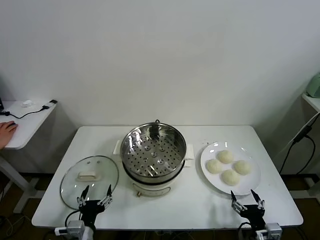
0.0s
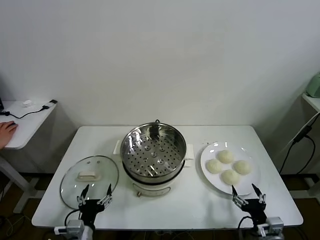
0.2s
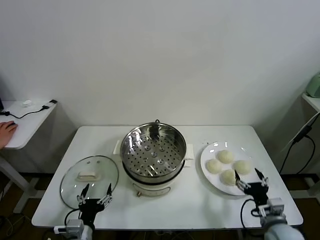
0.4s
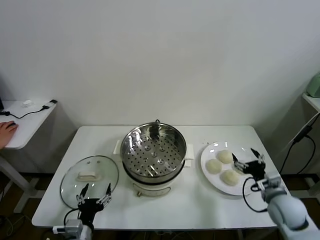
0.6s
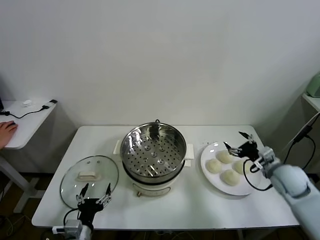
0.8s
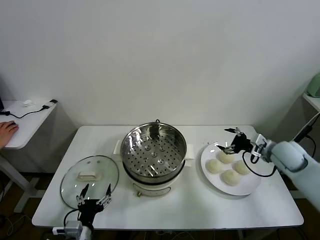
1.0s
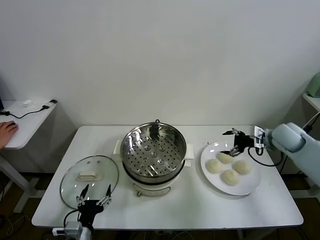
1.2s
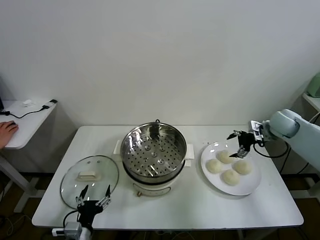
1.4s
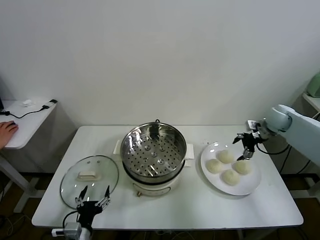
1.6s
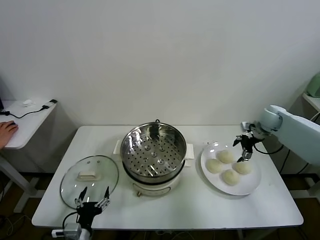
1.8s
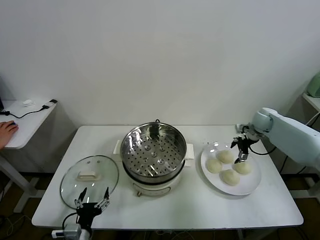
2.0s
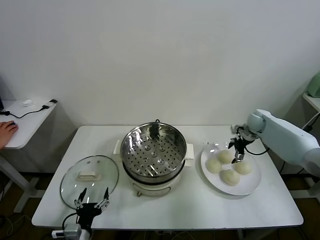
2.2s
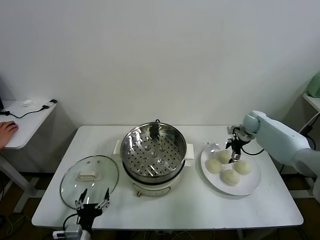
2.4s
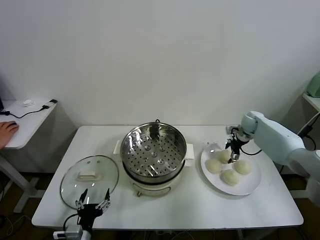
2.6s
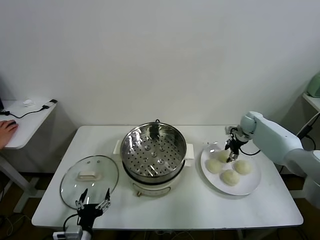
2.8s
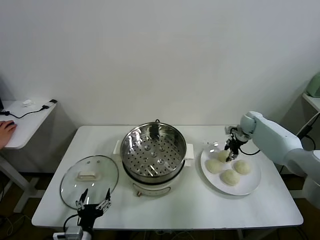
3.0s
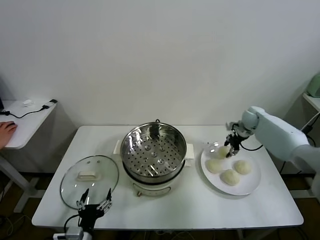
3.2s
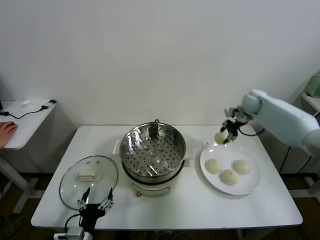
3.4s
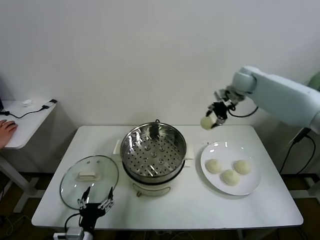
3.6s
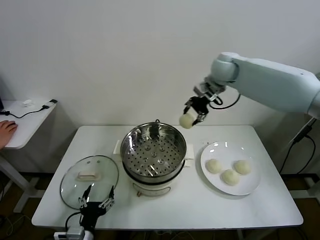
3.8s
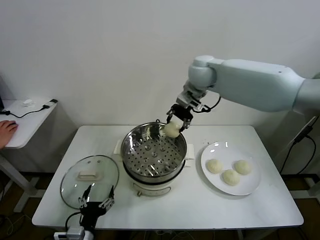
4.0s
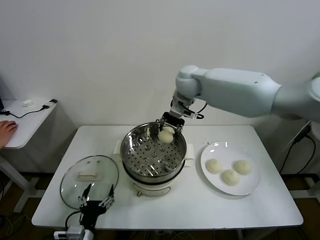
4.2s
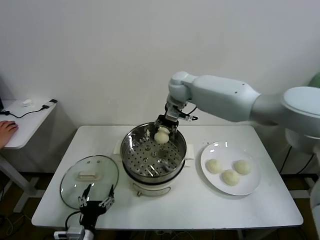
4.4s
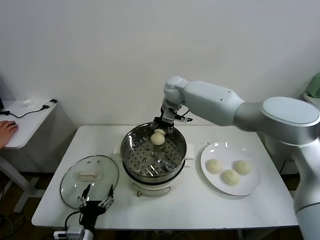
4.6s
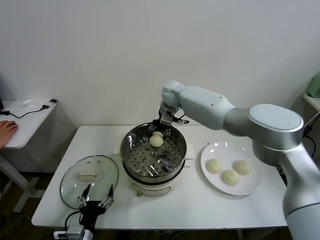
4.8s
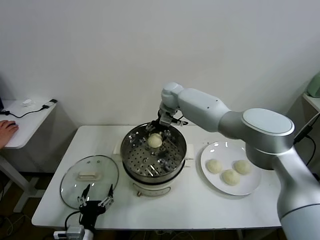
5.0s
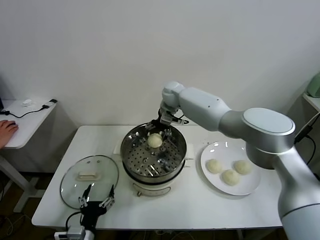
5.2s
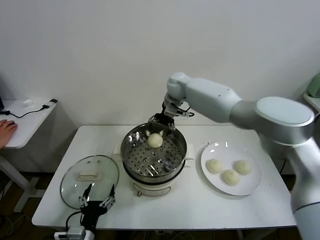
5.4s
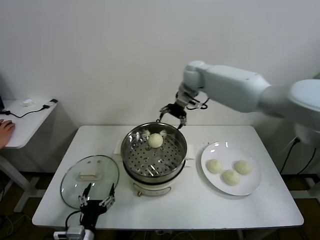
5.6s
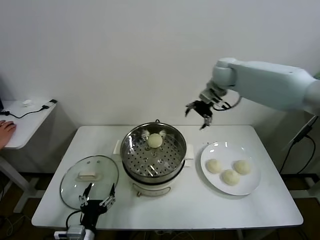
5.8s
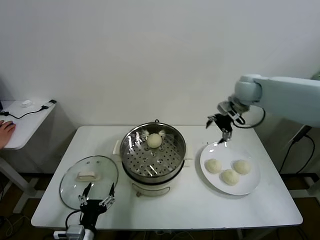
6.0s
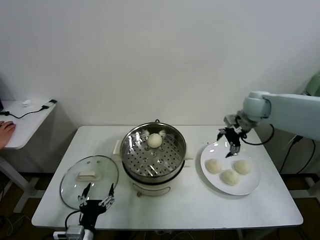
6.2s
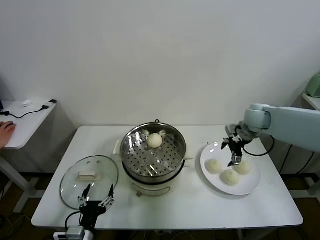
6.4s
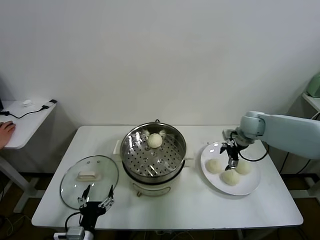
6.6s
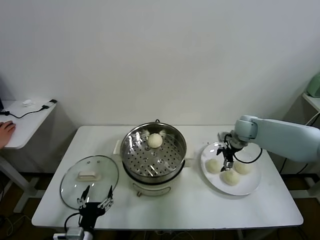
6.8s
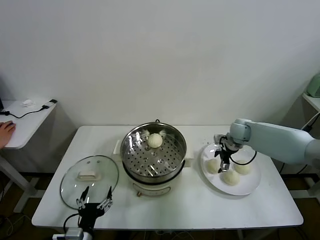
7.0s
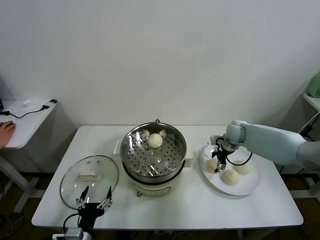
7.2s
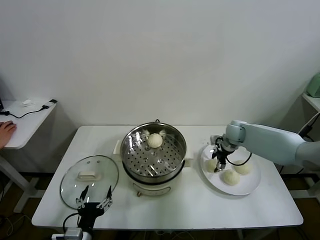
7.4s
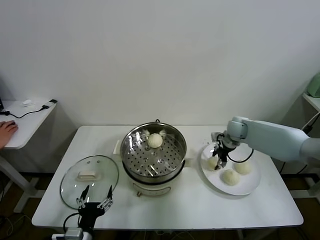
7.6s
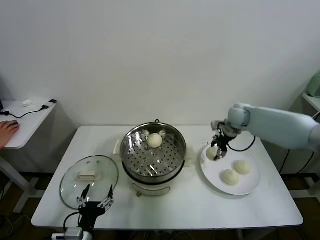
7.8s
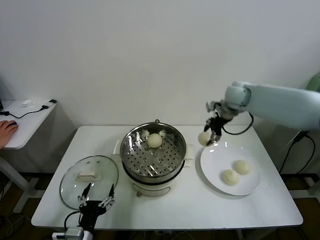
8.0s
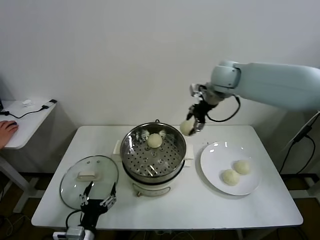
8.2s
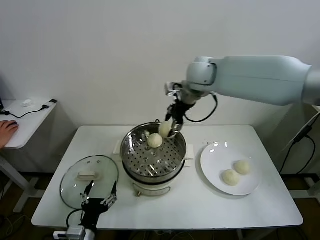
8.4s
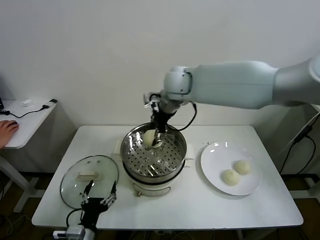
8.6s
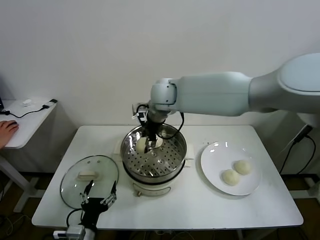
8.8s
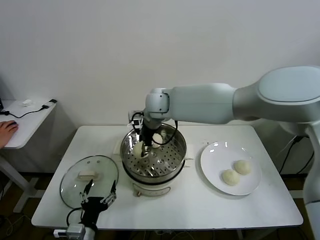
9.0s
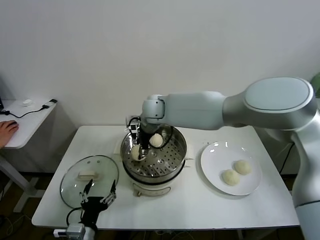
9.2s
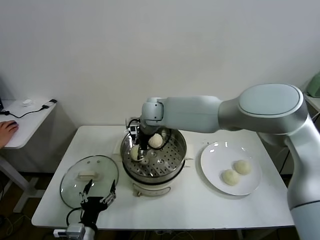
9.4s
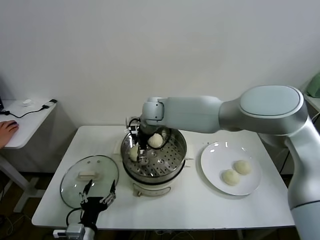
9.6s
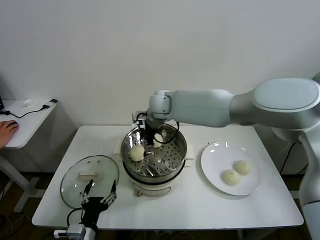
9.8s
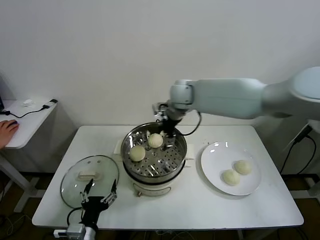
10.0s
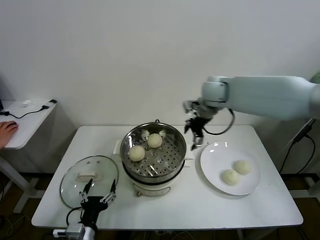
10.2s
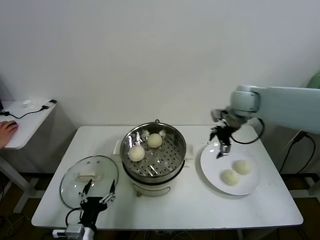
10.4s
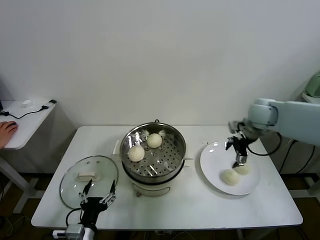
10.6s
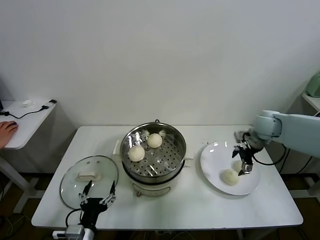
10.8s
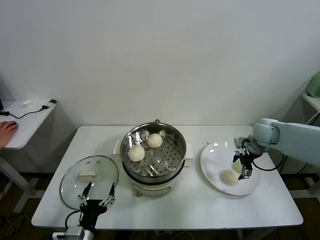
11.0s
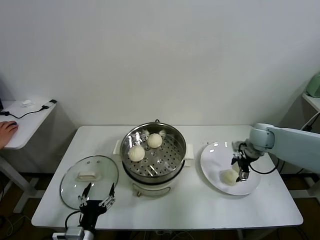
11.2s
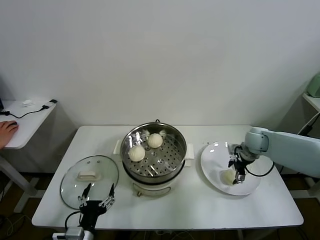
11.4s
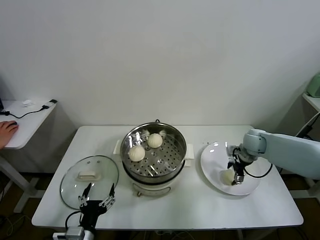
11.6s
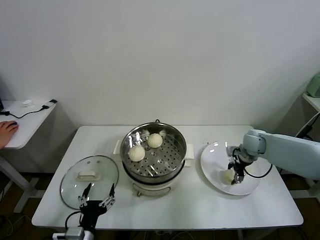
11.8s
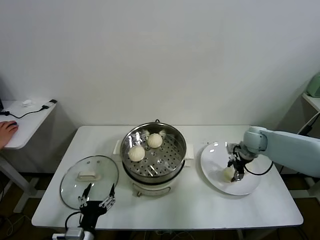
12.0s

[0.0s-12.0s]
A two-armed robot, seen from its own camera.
Task of the whole recording: take steamed baozi put them in steamer.
Step, 0.0s to 2.8s: Grasp the baozi in the plate with right gripper.
Step, 3.2s to 5.2s: Place the baozi on the steamer with right gripper.
Step, 5.4s to 7.2s: Grasp the baozi in the plate with right gripper.
Step, 7.4s to 9.6s: Place the baozi on the steamer with right gripper.
Step, 9.8s to 11.8s: Grasp the baozi in the plate with right gripper.
1.6s to 3.0s: The right gripper heads downward and forward, covering approximately 10 cm, and closes.
3.0s to 4.4s: The right gripper heads to the left and upward, covering about 35 cm.
4.4s to 6.0s: The right gripper shifts about 25 cm to the right, and opens up.
6.0s to 7.6s: The right gripper heads downward, covering some 15 cm, and closes.
7.6s to 9.0s: The right gripper travels to the left by some 30 cm.
9.0s to 10.4s: The right gripper is displaced to the right by approximately 30 cm, and opens its fingers.
10.4s to 12.0s: The right gripper heads downward and to the right, covering some 15 cm, and closes up.

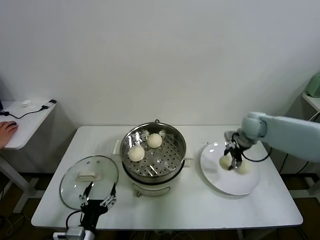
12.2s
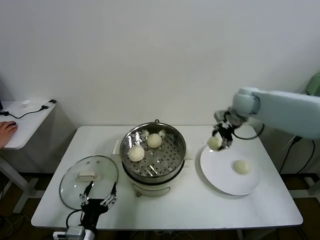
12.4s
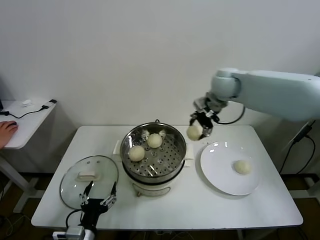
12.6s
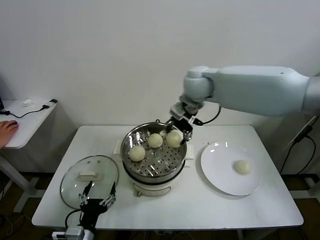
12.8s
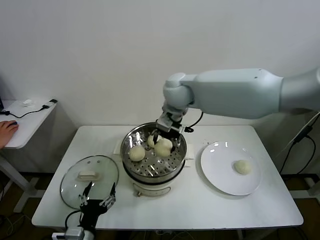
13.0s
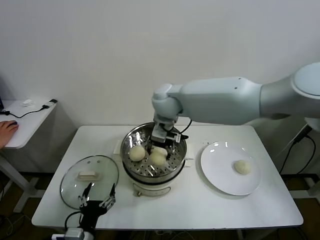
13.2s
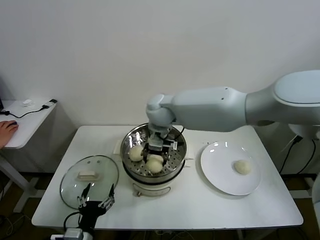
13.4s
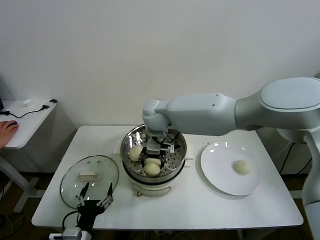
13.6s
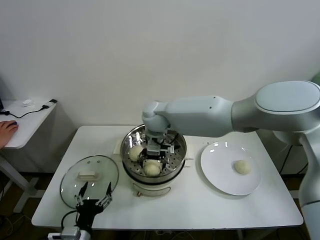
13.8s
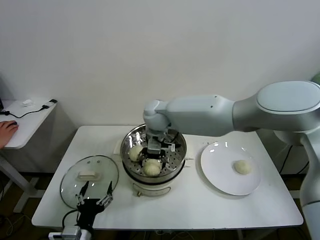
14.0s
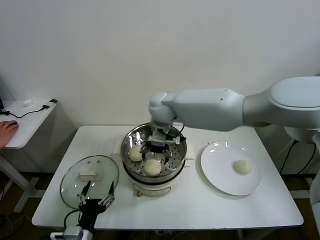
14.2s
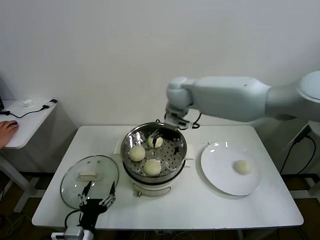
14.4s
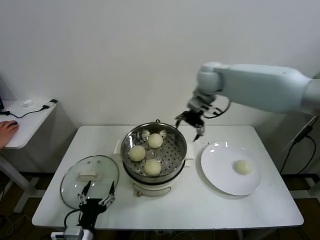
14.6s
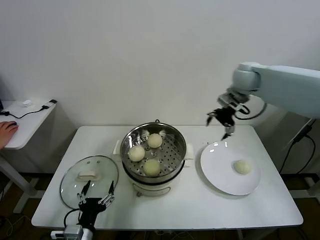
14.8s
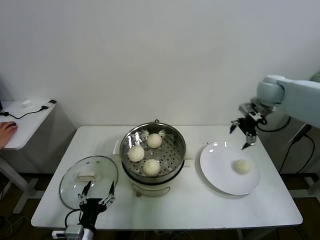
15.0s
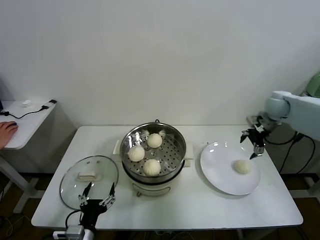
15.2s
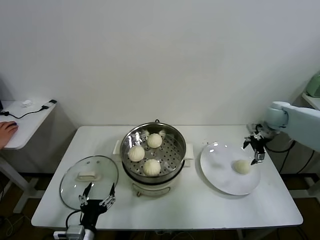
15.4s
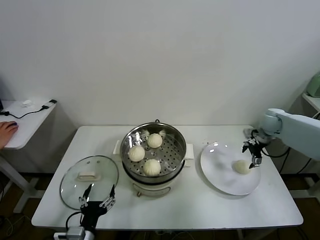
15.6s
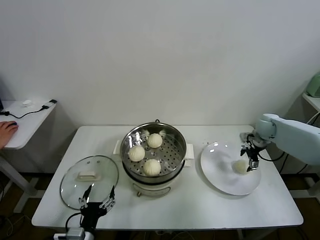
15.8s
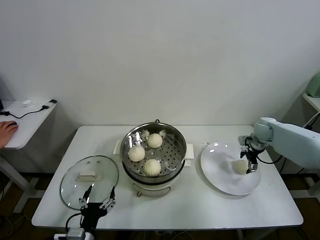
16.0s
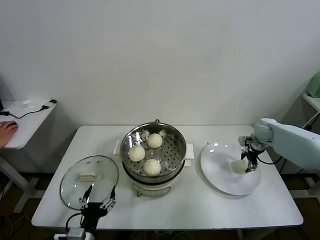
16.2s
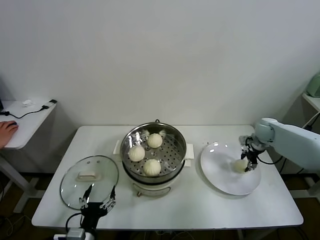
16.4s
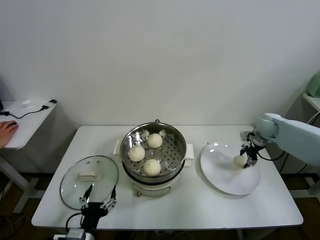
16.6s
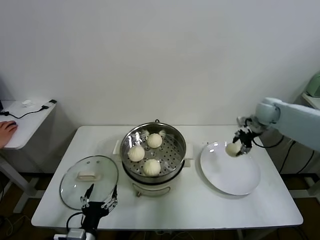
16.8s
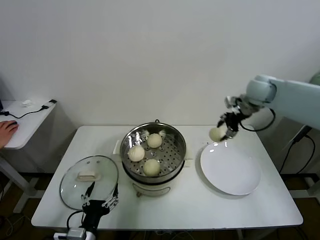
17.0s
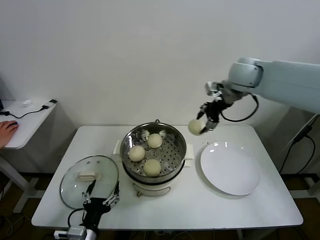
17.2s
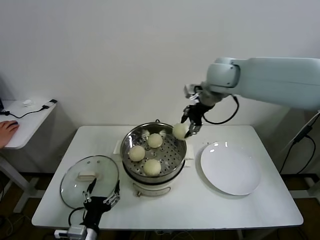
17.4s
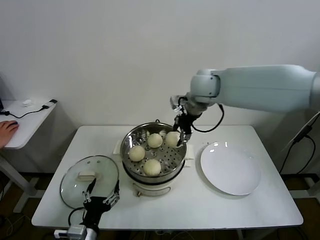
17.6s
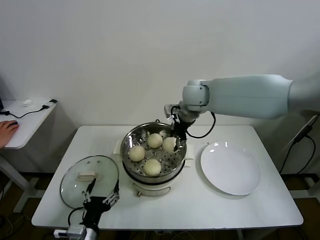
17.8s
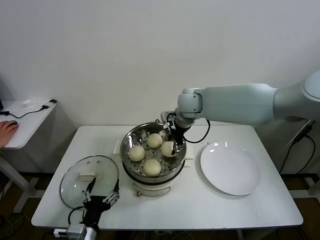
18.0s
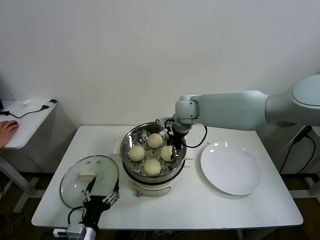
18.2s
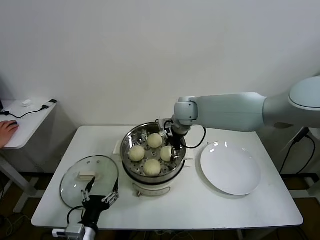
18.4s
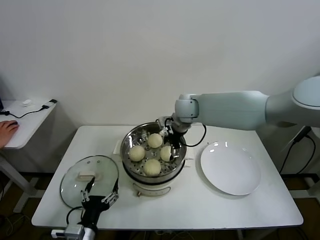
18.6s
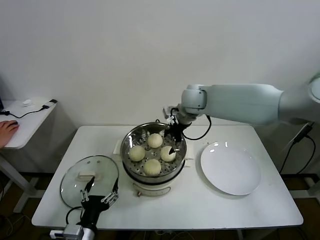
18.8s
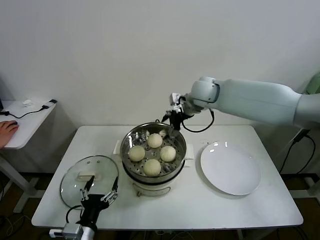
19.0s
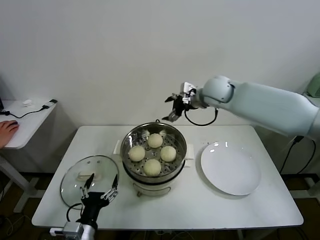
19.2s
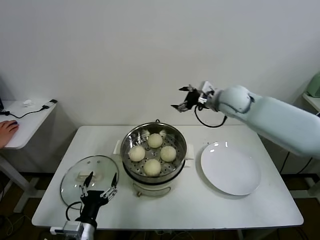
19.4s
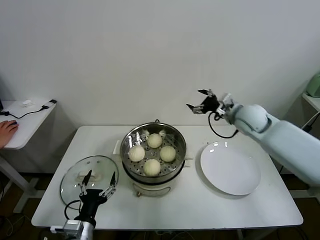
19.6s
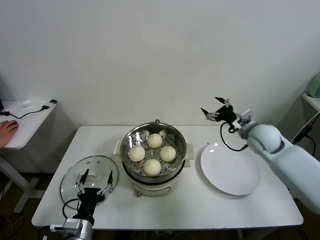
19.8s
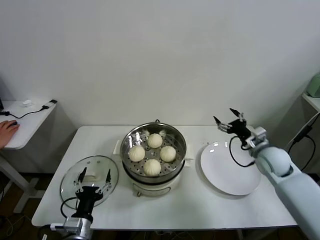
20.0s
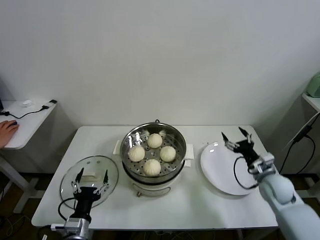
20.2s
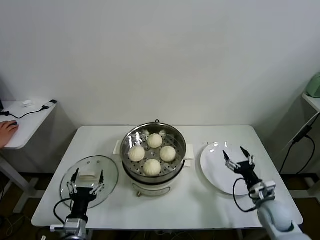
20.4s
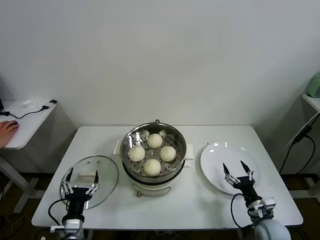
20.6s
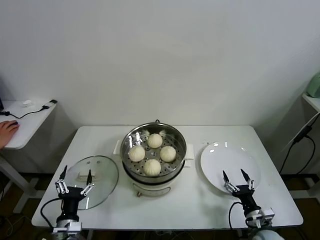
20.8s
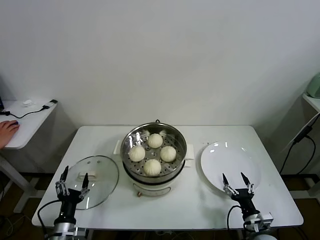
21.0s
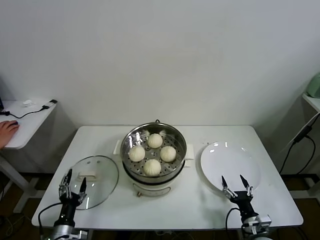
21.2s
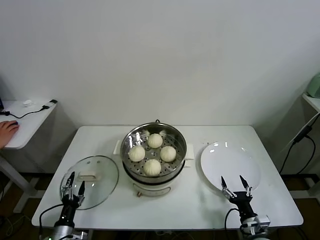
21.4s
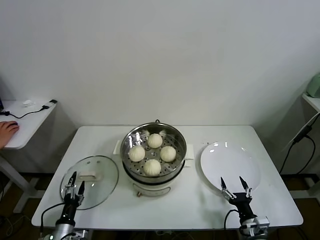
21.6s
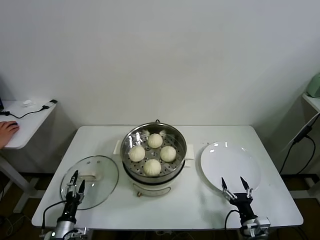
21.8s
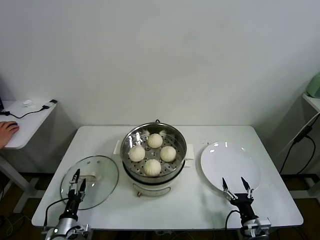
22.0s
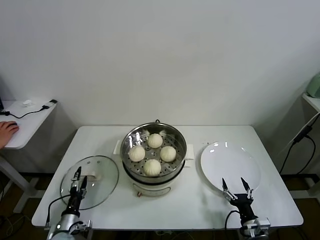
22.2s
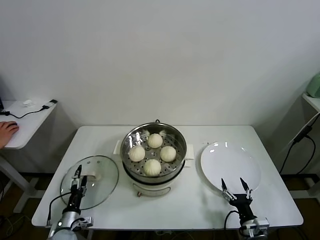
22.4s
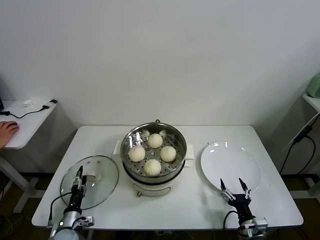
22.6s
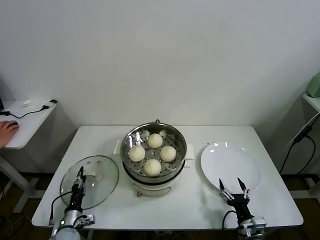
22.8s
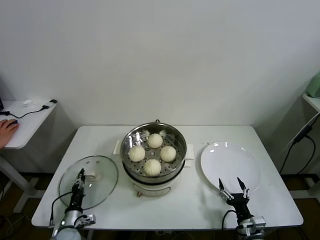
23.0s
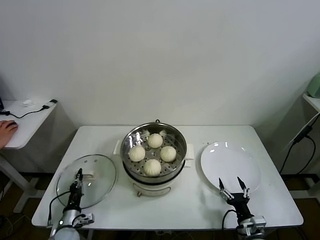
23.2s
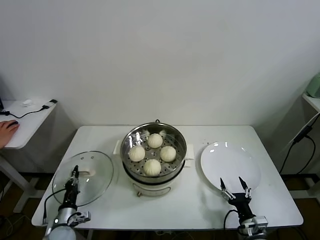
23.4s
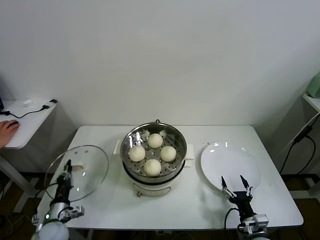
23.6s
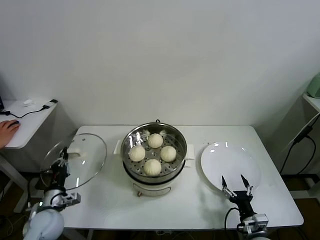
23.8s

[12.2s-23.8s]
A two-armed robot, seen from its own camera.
Task of the whole recording: take steamed baozi put them in steamer.
Step, 12.2s to 13.8s: Place the baozi on the steamer with right gripper.
Step, 14.0s to 16.4s: Grasp the baozi in the plate with right gripper.
Step, 16.6s to 18.6s: Place the baozi on the steamer with right gripper.
Step, 18.8s to 23.0s: Grasp the pot lid with left gripper.
12.2s to 13.6s: The right gripper moves to the left, some 35 cm.
13.6s to 15.0s: The right gripper heads to the right, covering about 40 cm, and opens up.
15.0s to 16.6s: The right gripper moves downward, some 15 cm, and closes its fingers.
16.6s to 18.0s: The right gripper goes roughly 30 cm to the left.
18.0s to 19.4s: The right gripper is displaced to the right by roughly 15 cm, and opens its fingers.
19.4s to 21.0s: The right gripper goes roughly 50 cm downward and backward. The left gripper travels downward and to the left by roughly 10 cm.
21.0s to 22.4s: The left gripper moves downward and forward, approximately 10 cm.
22.4s to 23.8s: The left gripper is displaced upward by some 10 cm, and closes its fingers.
